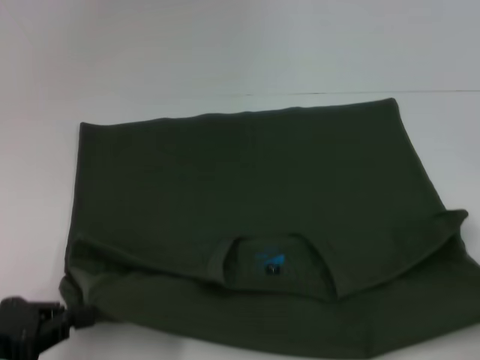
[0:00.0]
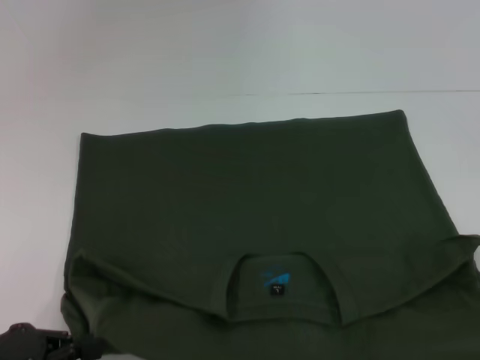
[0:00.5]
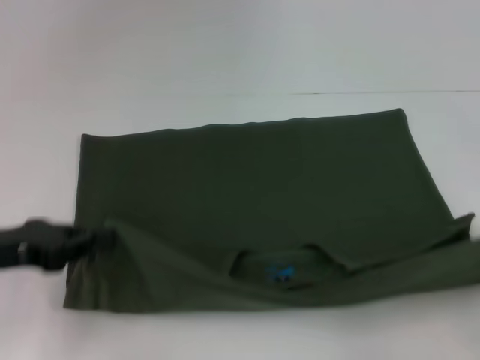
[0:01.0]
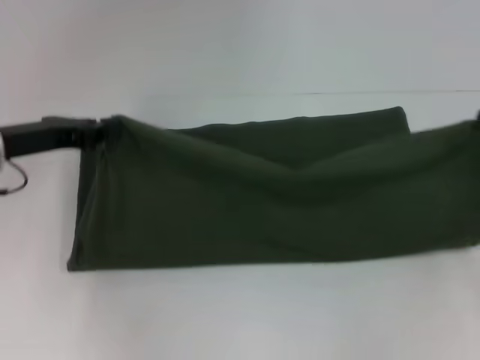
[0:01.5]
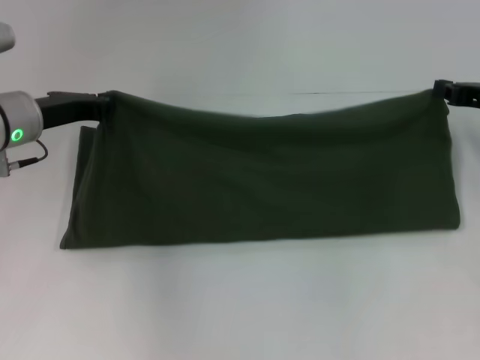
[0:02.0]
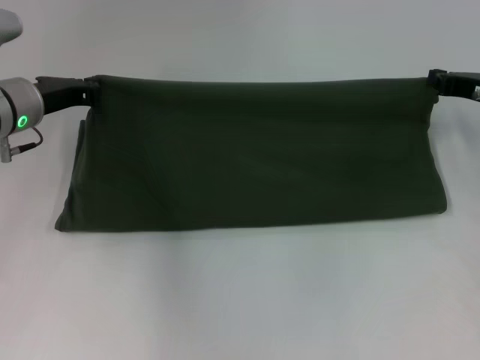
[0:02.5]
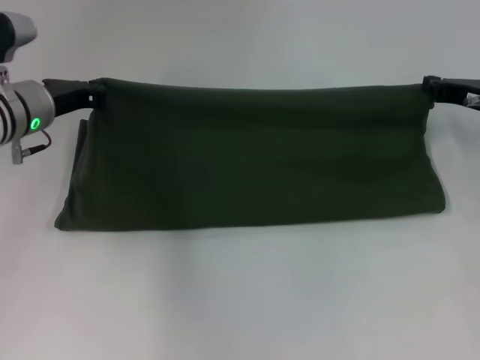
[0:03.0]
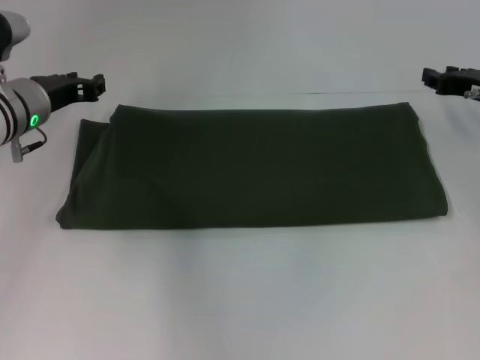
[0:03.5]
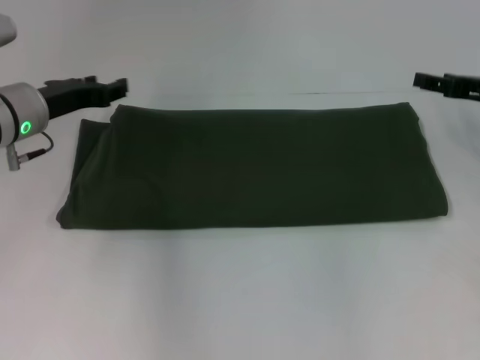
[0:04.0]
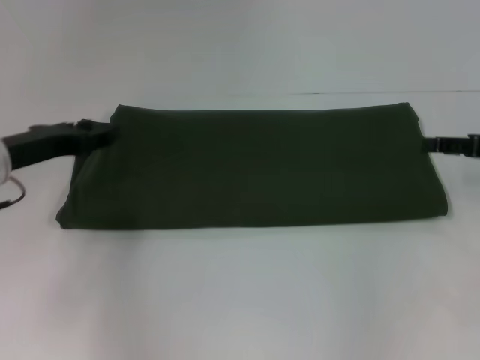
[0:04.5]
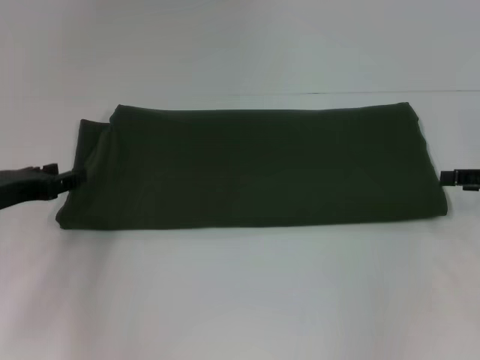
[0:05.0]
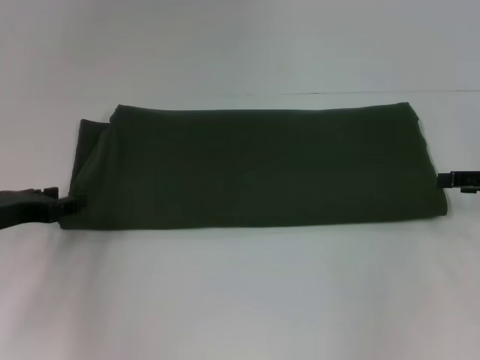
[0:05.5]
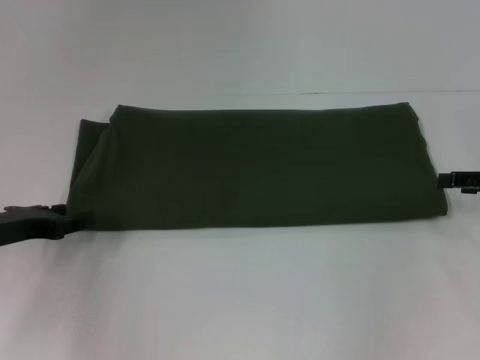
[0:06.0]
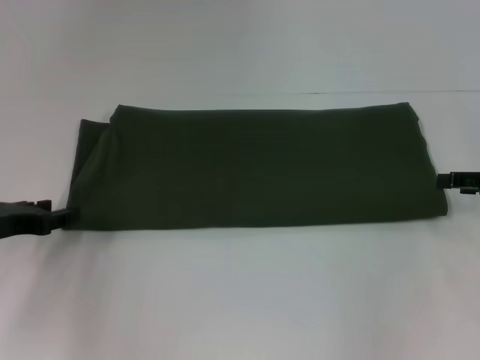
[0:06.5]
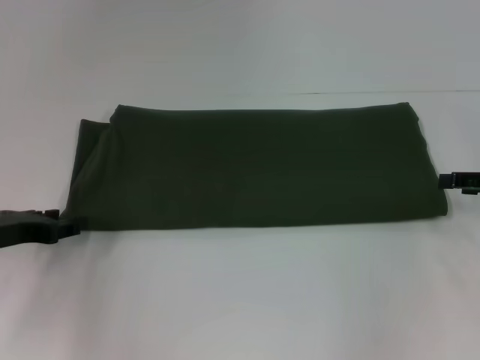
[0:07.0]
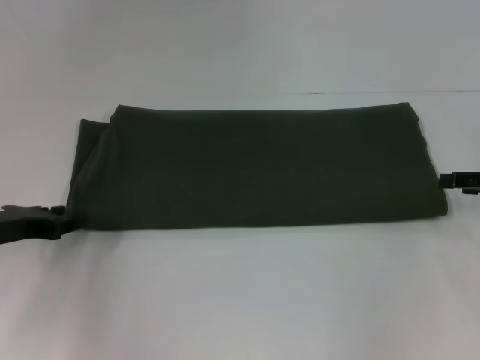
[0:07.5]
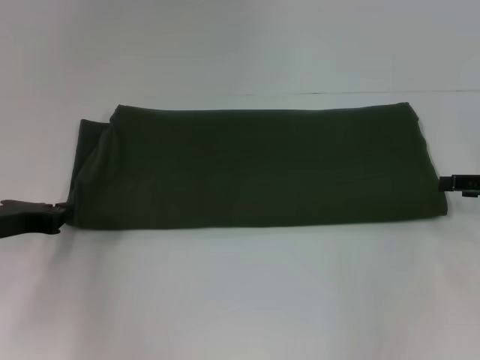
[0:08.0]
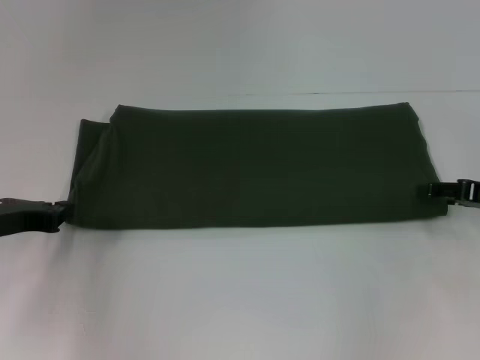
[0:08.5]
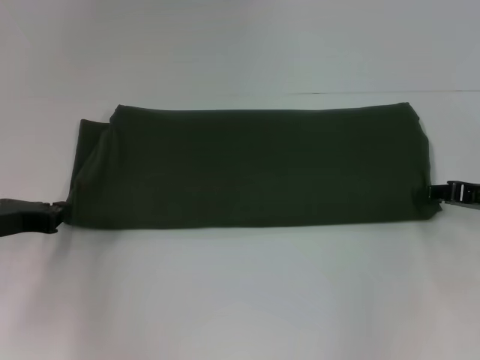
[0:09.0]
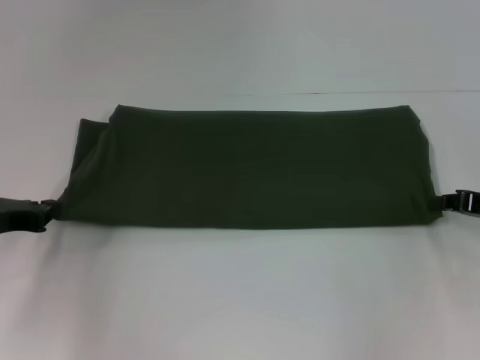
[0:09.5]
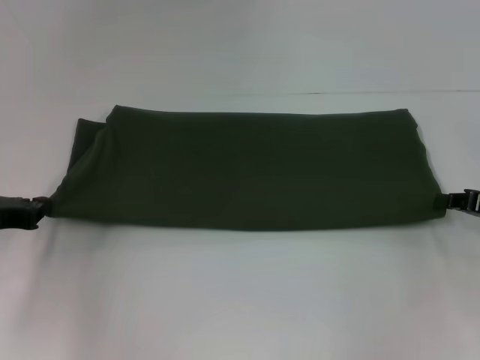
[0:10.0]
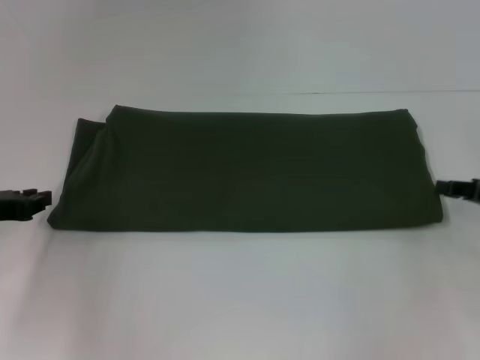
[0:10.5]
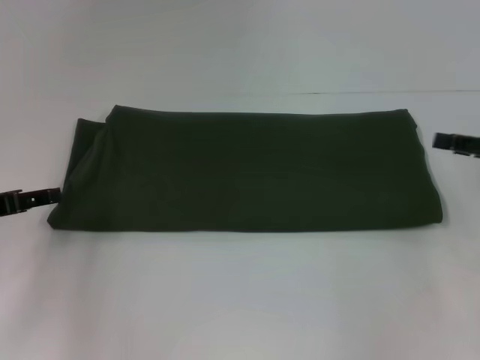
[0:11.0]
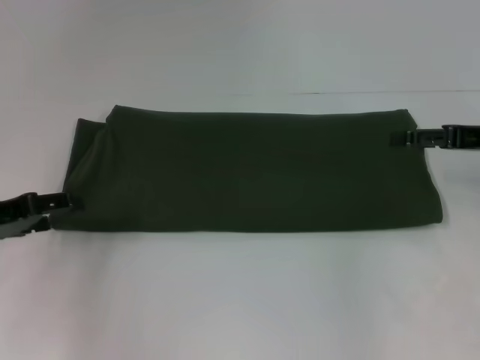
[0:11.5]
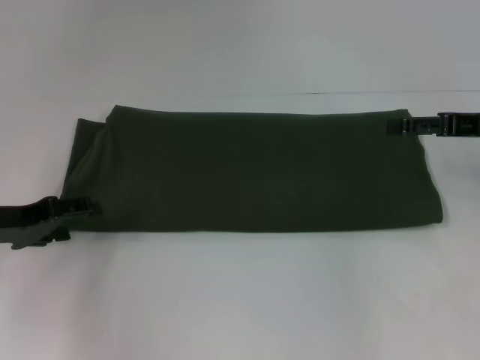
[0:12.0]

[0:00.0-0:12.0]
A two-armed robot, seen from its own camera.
Step, 0.0 to 3.0 s: Fold the clothes with your right hand.
0.0 to 2.0 s: Both grippers move forward, about 25 cm.
2.0 to 4.0 s: The left gripper opens its fingers; the right gripper opens.
4.0 to 6.0 s: The right gripper travels backward by roughly 5 cm. The left gripper heads backward and to the left, covering approximately 10 cm.
6.0 to 8.0 s: The left gripper closes its fingers.
8.0 to 10.0 s: The right gripper closes up.
10.0 to 12.0 s: The left gripper opens its fingers, while the right gripper moves upward and forward, some 10 cm, and opens its fingers.

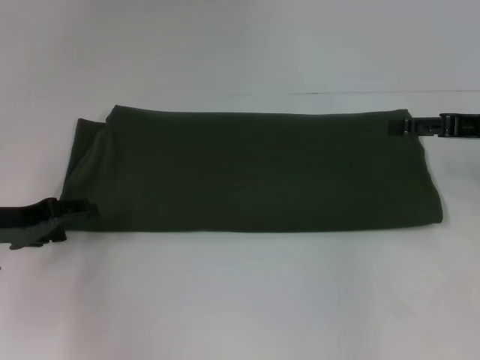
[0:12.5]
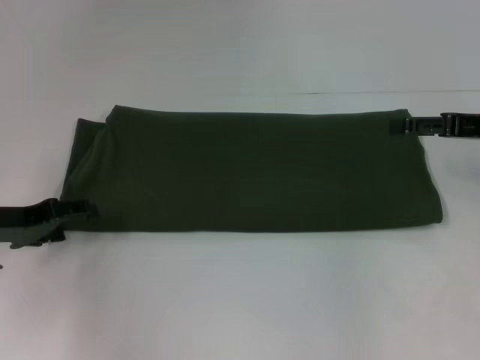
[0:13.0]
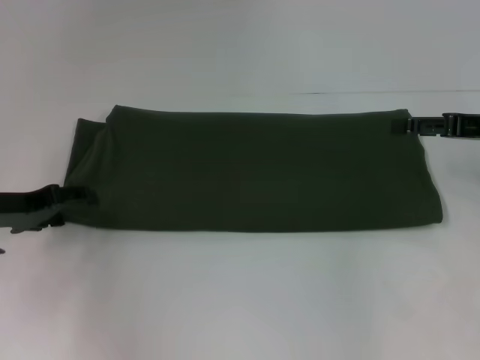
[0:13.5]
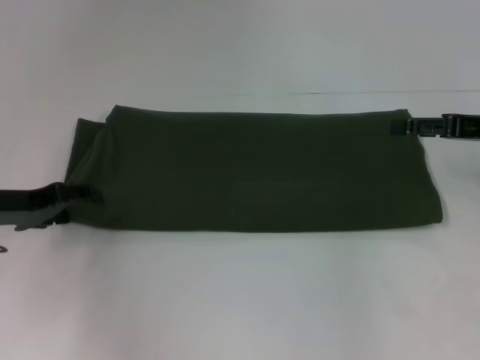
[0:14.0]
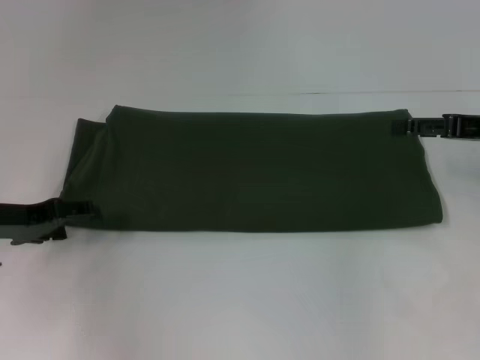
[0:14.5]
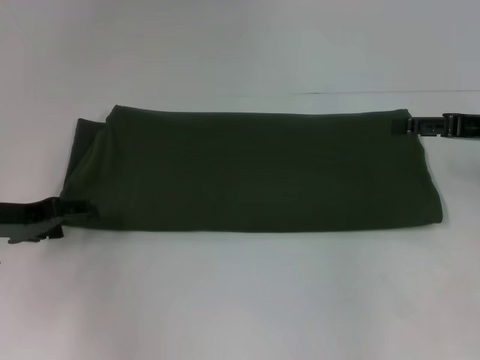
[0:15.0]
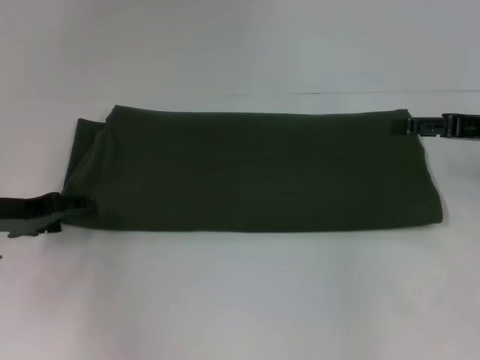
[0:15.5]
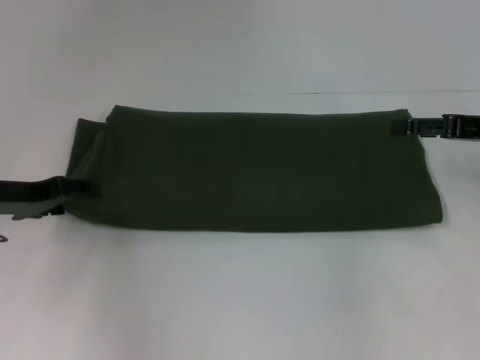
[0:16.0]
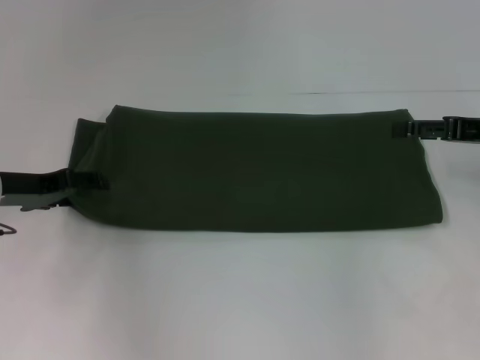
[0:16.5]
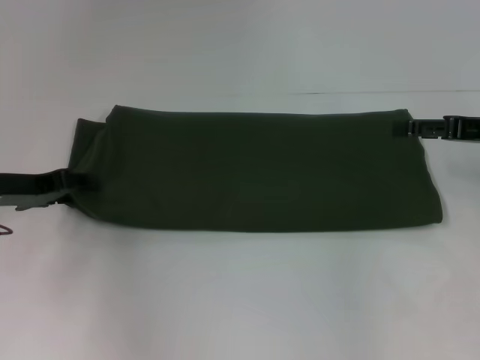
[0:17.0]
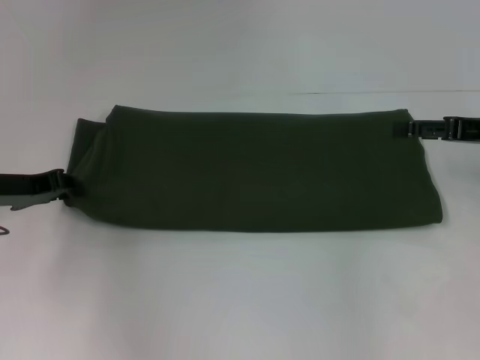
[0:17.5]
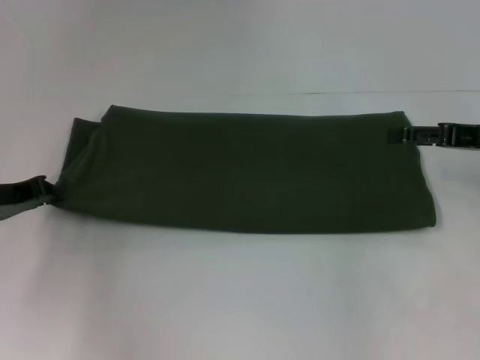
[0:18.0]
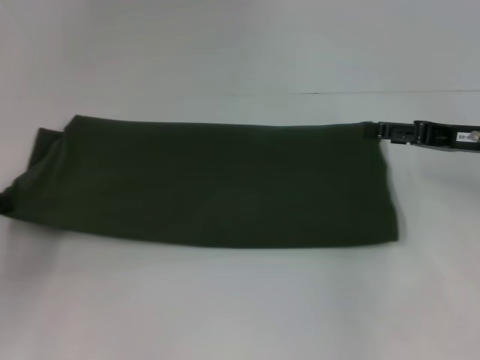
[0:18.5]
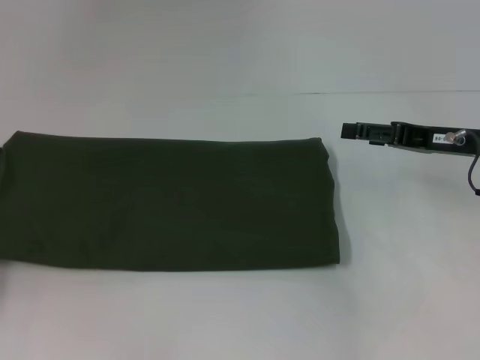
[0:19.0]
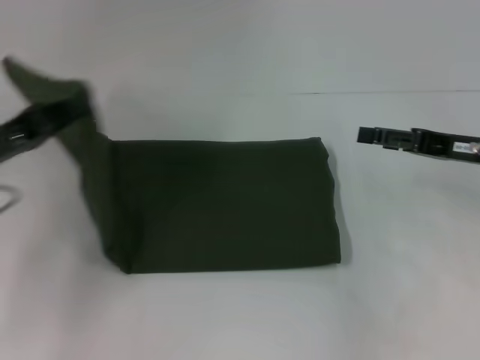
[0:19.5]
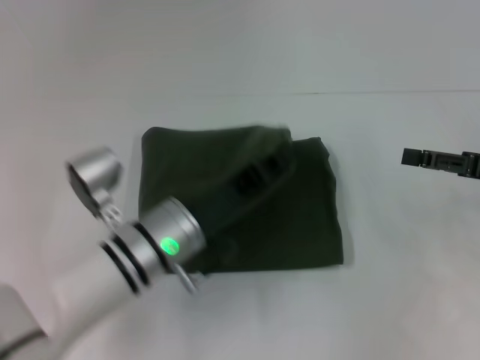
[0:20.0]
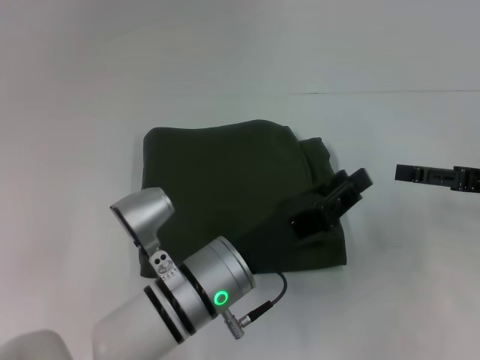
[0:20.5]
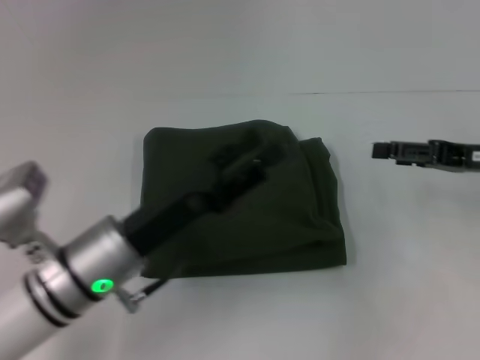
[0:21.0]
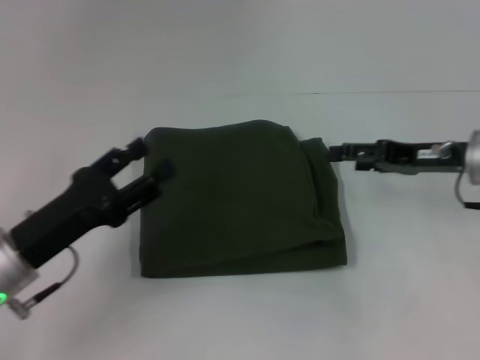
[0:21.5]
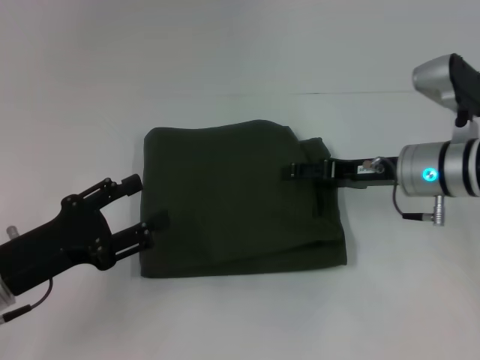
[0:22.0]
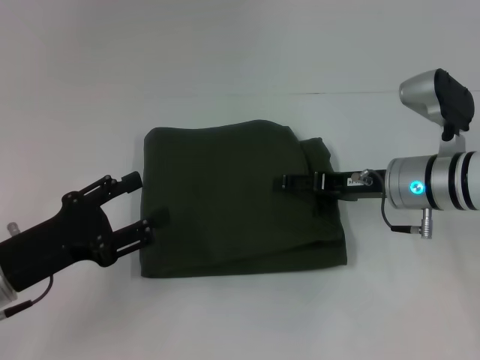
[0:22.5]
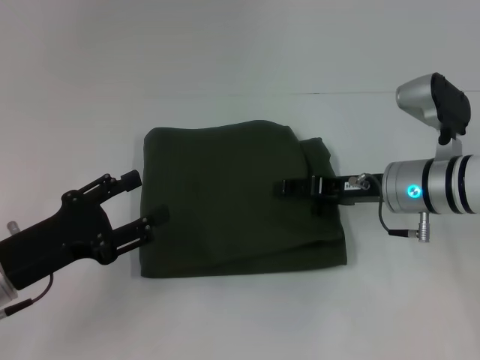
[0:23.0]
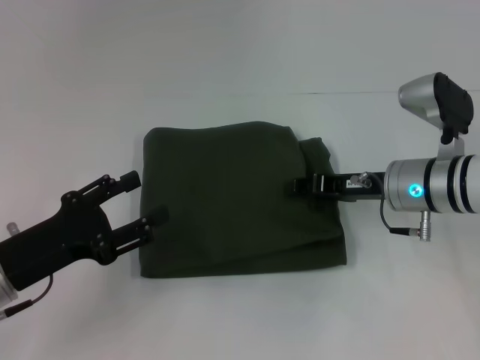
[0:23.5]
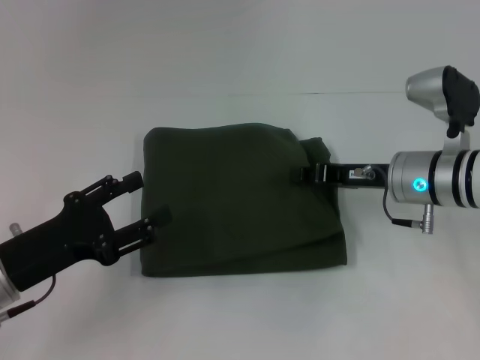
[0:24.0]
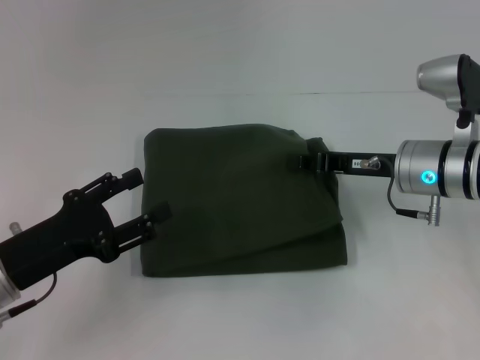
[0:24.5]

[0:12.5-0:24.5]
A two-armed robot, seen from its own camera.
Step, 12.5 to 20.0 s: Fold the clothes with your left hand.
14.5 to 16.5 s: There are only small adjustments of the grippers.
16.5 to 18.5 s: The left gripper heads backward and to the left, covering approximately 10 cm, and closes its fingers.
18.5 to 20.5 s: The left gripper goes about 30 cm to the right. The right gripper ends up approximately 5 cm from where it was.
20.5 to 22.5 s: The right gripper travels to the left by about 15 cm. The left gripper moves to the left, roughly 20 cm, and opens.
22.5 to 24.5 s: The right gripper closes its fingers.

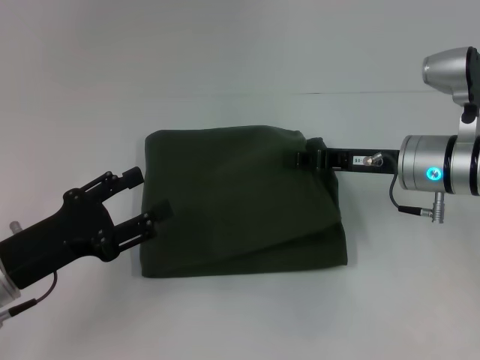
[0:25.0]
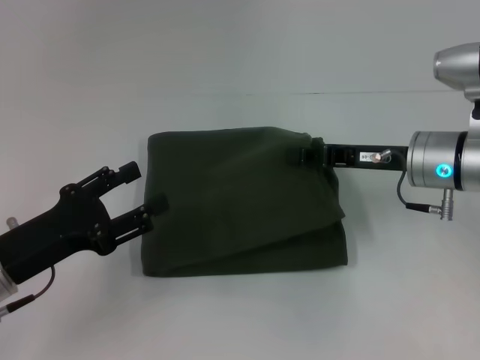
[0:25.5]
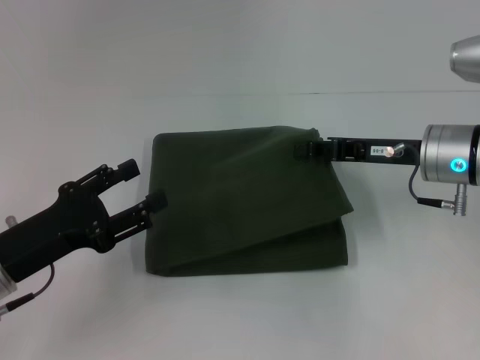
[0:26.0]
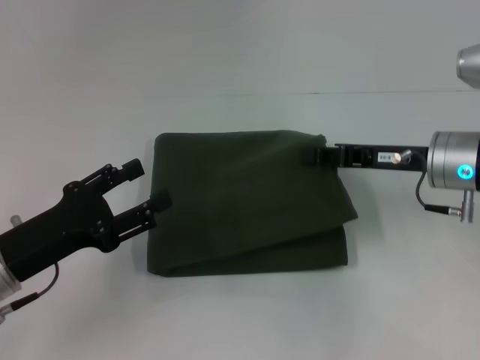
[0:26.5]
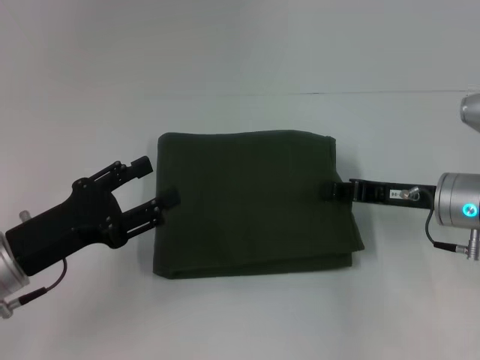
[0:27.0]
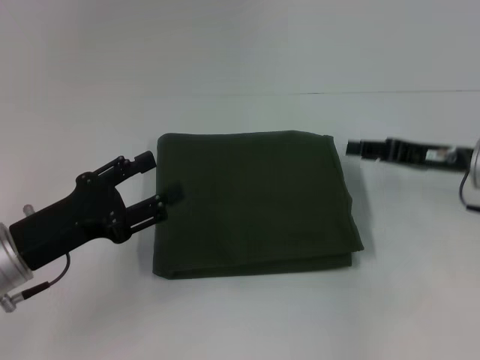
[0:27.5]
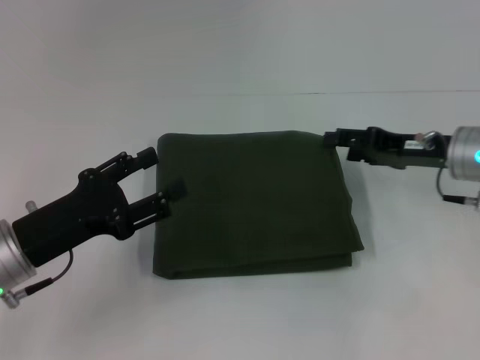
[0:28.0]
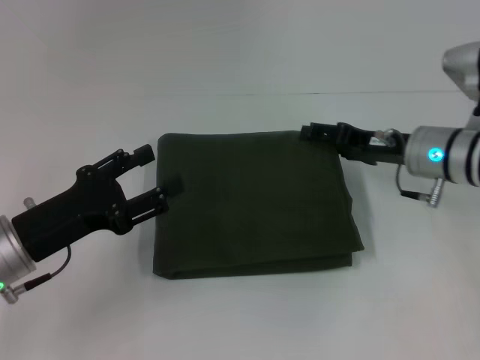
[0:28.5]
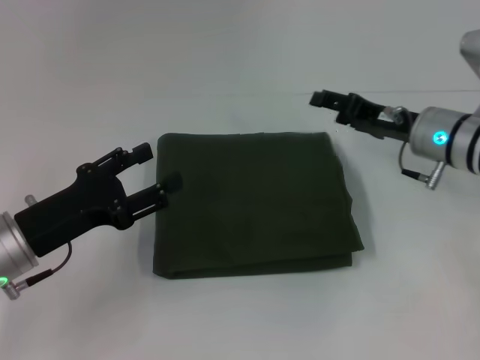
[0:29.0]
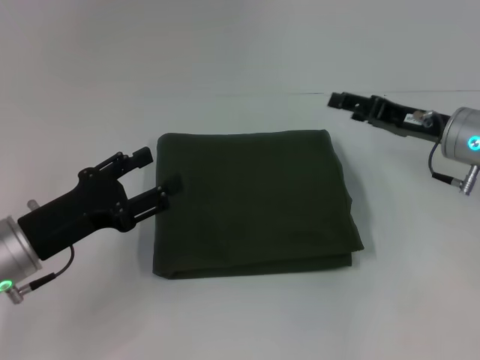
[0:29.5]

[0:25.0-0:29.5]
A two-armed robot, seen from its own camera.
25.0 to 27.0 s: The right gripper moves about 5 cm.
27.0 to 29.5 s: The right gripper changes place by about 5 cm, and opens up.
